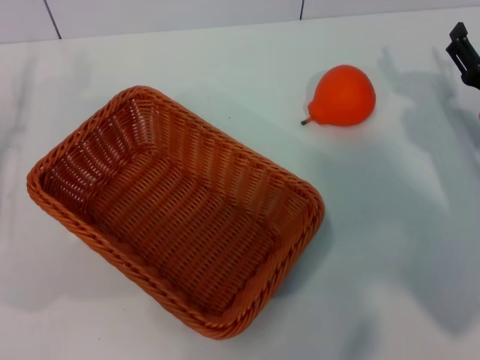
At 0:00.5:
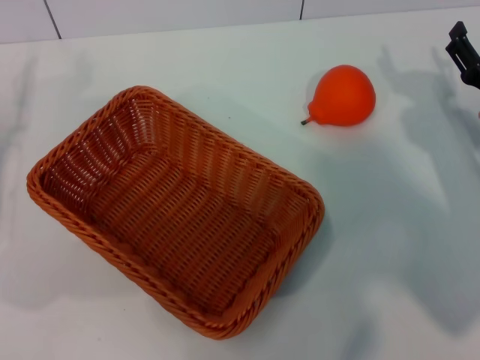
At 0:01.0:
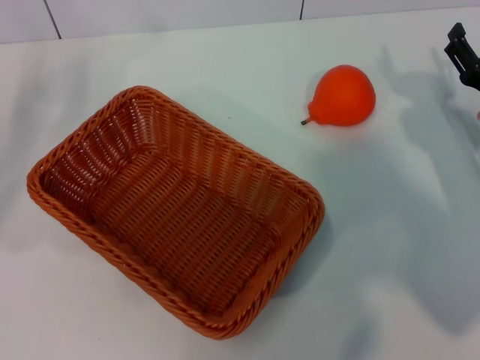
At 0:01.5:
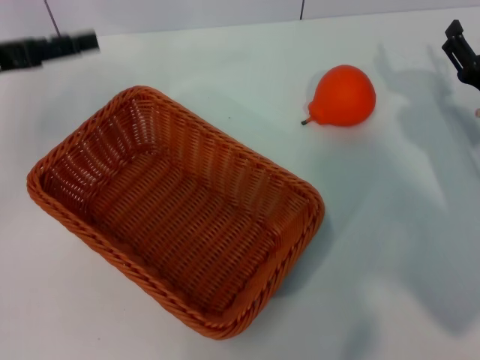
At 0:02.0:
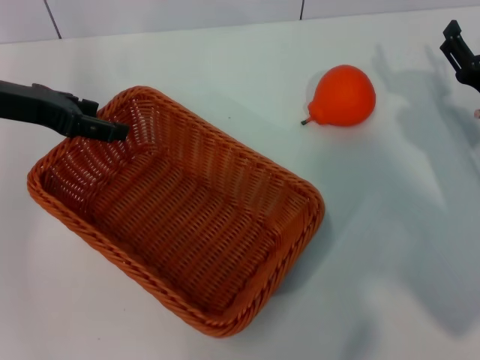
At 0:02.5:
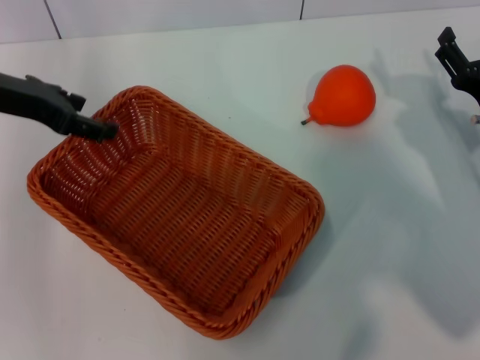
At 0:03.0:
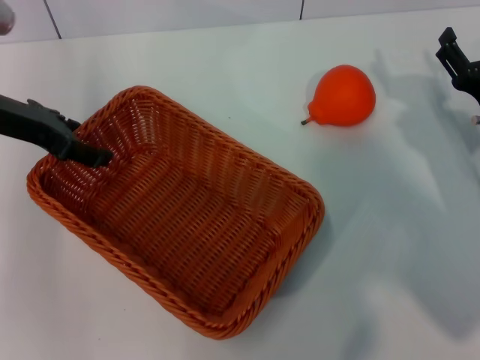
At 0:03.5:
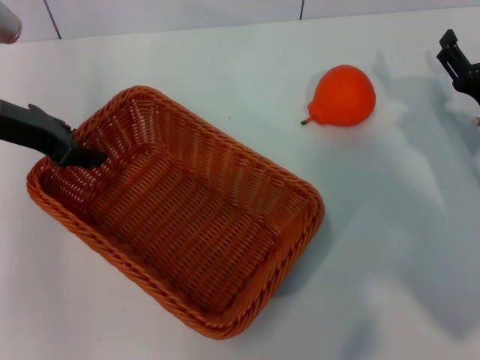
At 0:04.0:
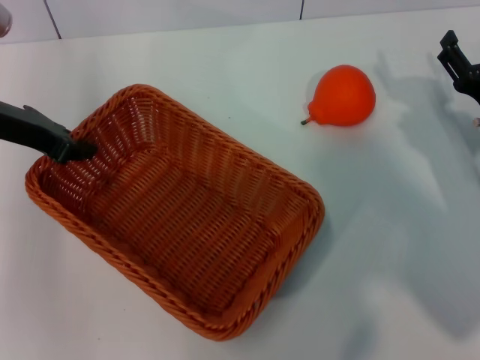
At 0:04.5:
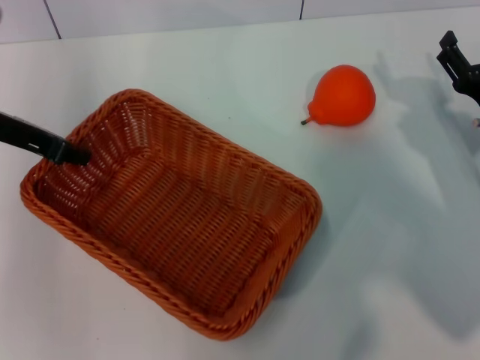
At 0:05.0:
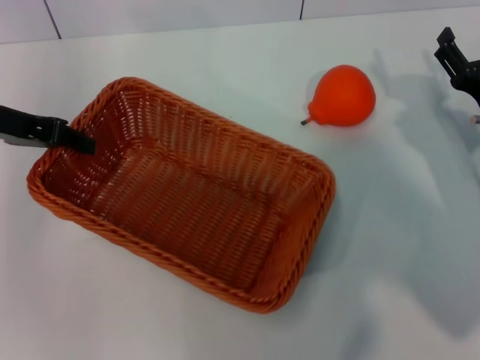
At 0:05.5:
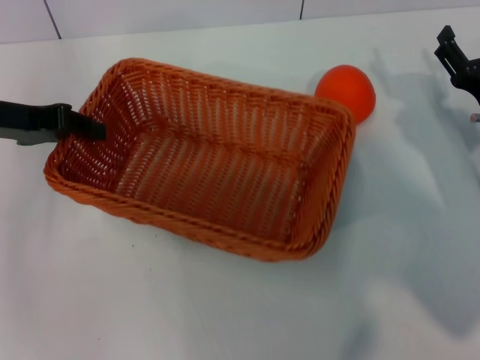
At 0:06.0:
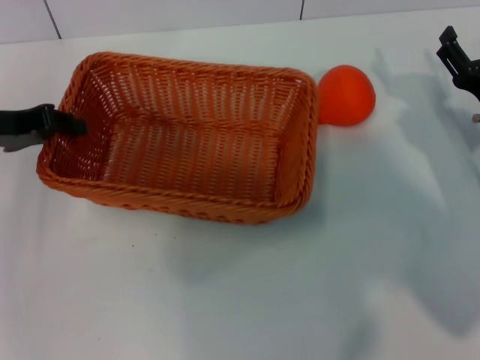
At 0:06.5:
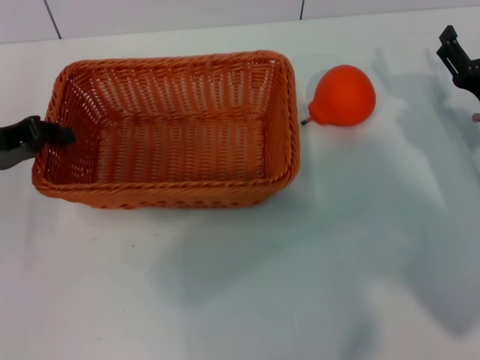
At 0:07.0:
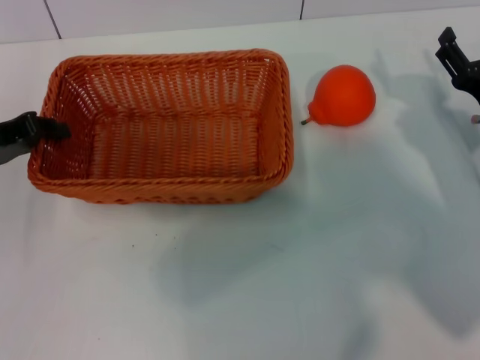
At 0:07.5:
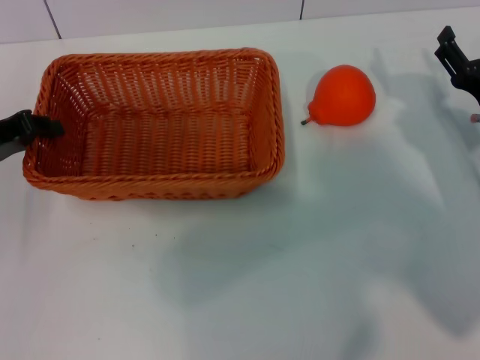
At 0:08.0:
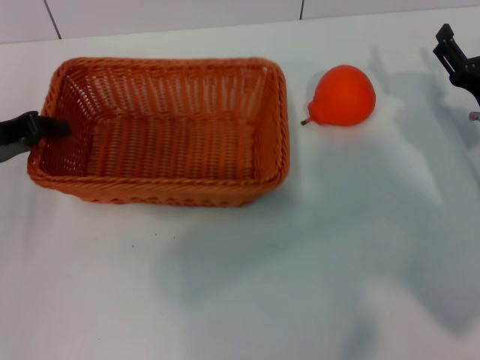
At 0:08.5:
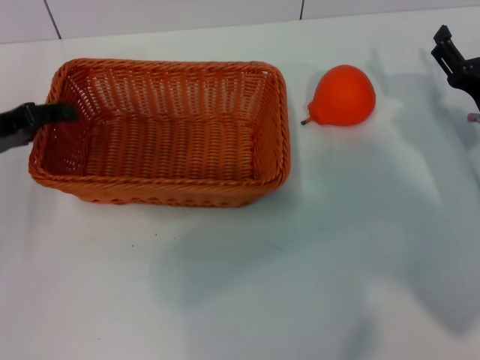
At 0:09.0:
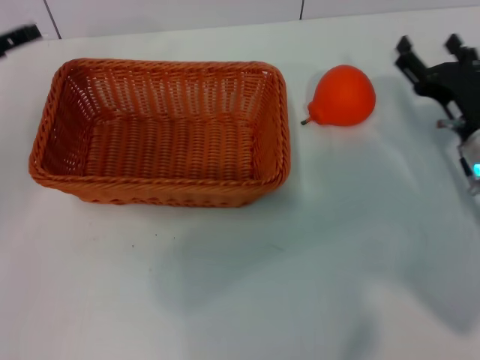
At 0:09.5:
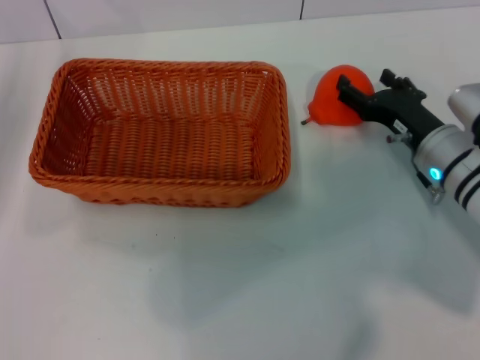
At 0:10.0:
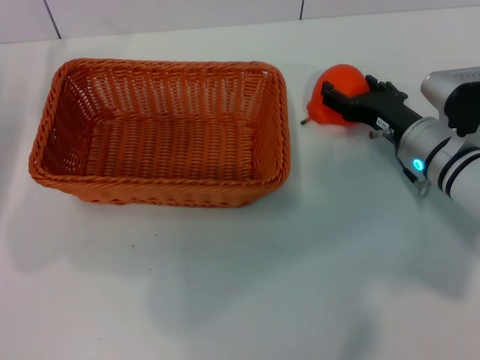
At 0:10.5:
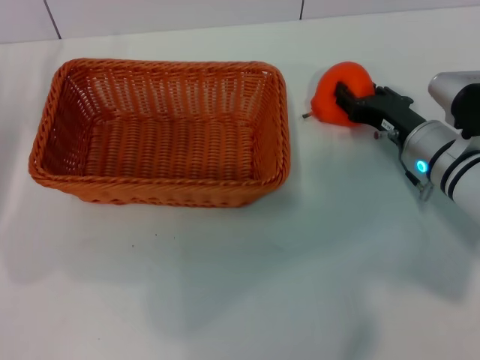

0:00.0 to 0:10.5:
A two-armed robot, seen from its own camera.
Task of the whole recording: the left gripper pick up the yellow basket and place it horizontally in the middle of the table, the right gripper pick up the orange and place it into the yellow basket.
Step, 0:00.0 to 0:04.5: Pick up the light basket with the left gripper.
Step, 0:05.0 to 0:08.5: Place the light basket in the center of view with the left gripper.
0:00.0 to 0:02.0: The left gripper travels upward, forward and to the right by roughly 15 cm.
0:02.0 to 0:04.0: The left gripper closes its fingers.
0:04.0 to 0:06.5: The left gripper moves roughly 10 cm.
0:06.5 to 0:08.5: The left gripper opens.
0:08.5 to 0:10.5: The left gripper moves roughly 5 cm, and opens its fingers; the right gripper is displaced to the left by some 5 cm.

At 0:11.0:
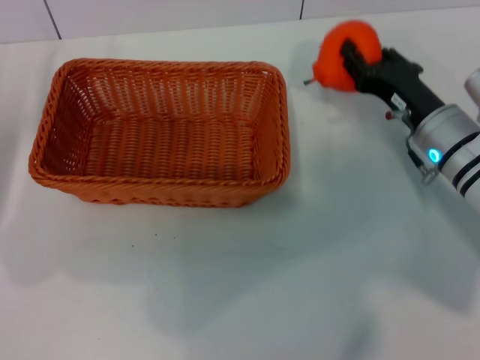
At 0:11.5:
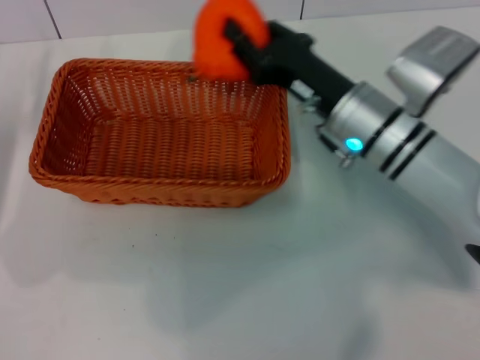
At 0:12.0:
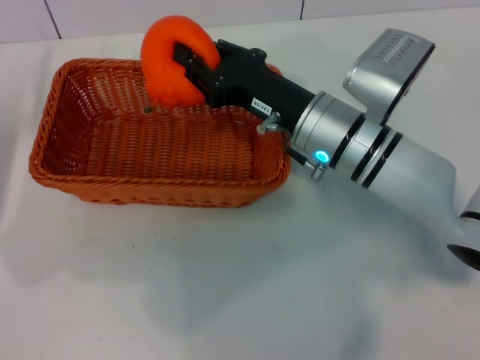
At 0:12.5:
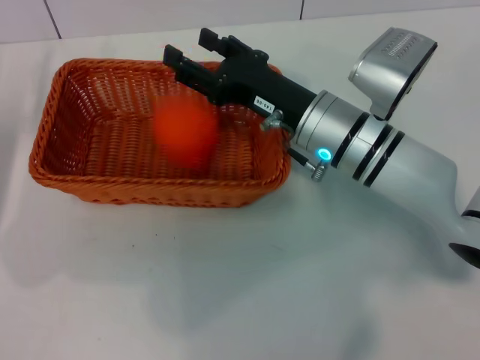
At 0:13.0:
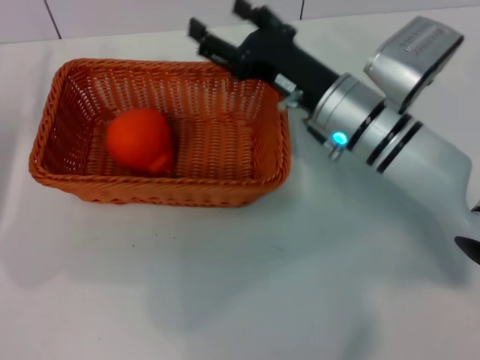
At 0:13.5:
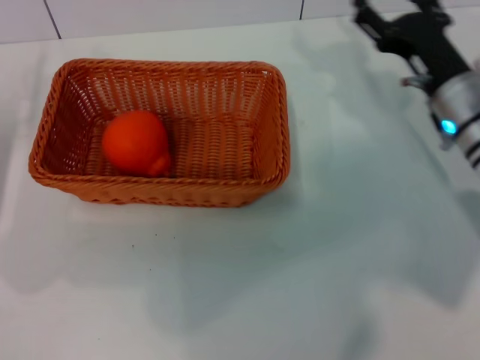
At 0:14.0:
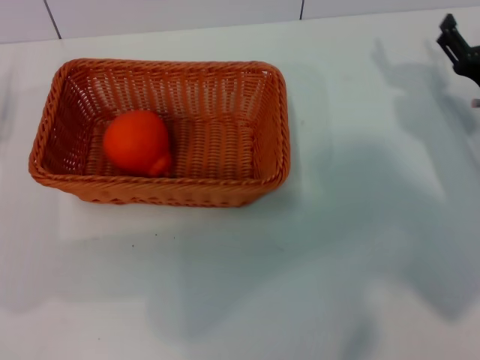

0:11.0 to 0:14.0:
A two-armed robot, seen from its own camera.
Task of the whole recording: the left gripper pick up the yellow basket and place it horizontally in the middle of the table, the right gripper pick up the orange and place it into the yellow basket.
Step, 0:11.5 to 0:12.5: Place the orange into the light basket with the right gripper.
0:11.0 to 0:12.5: The right gripper shifts roughly 10 cm to the left.
0:12.5 to 0:14.0: The right gripper shifts roughly 20 cm to the right, and opens.

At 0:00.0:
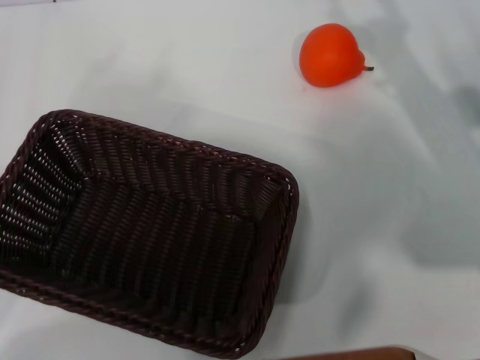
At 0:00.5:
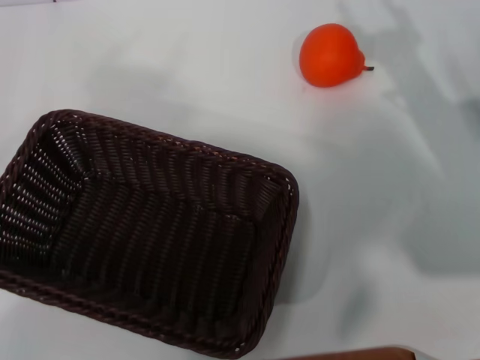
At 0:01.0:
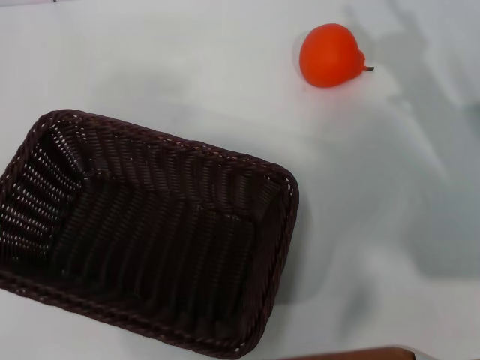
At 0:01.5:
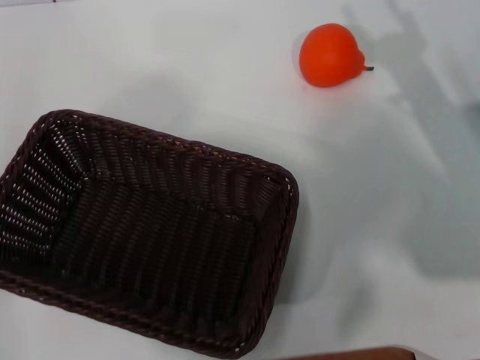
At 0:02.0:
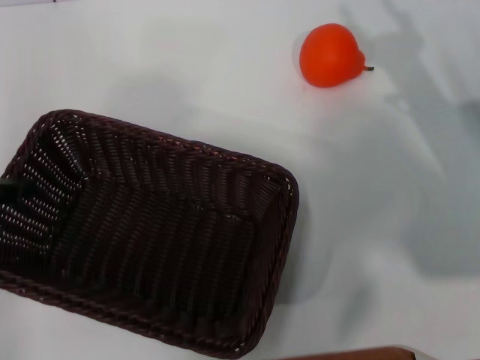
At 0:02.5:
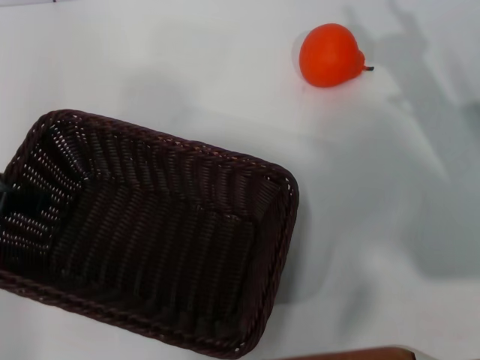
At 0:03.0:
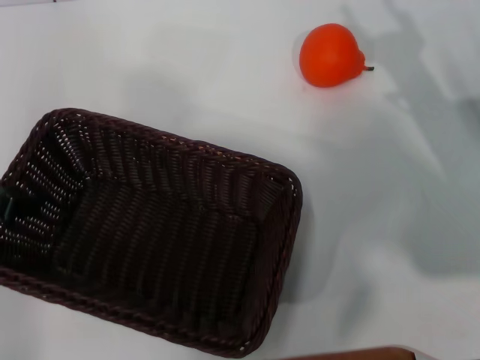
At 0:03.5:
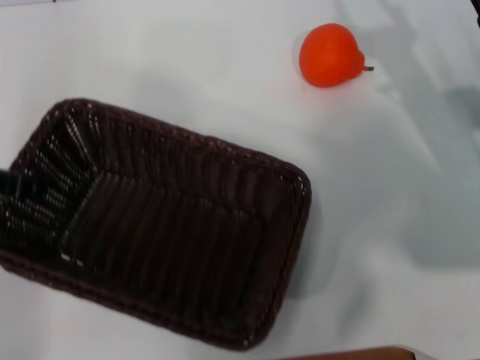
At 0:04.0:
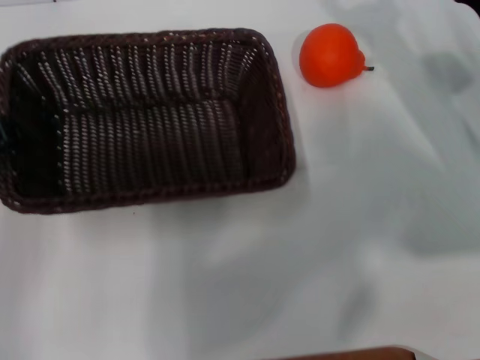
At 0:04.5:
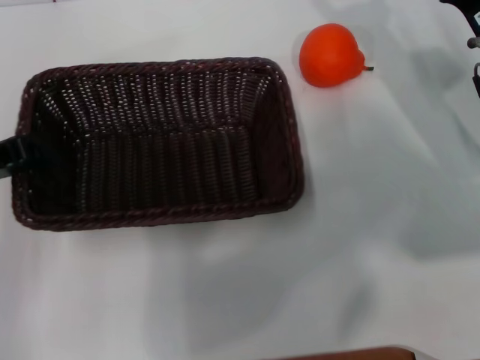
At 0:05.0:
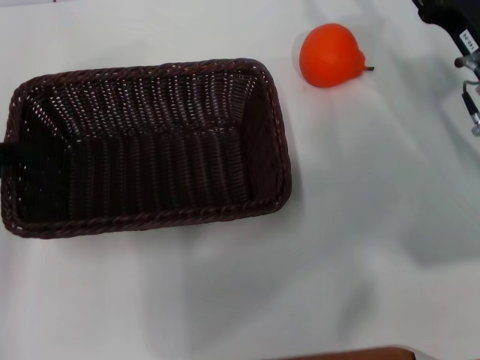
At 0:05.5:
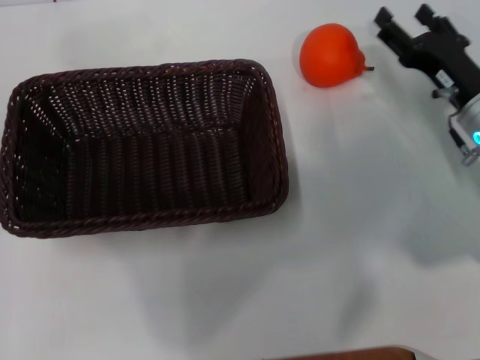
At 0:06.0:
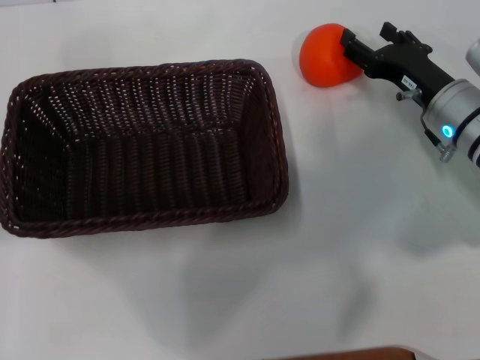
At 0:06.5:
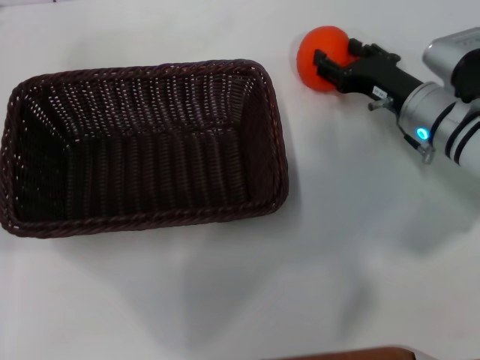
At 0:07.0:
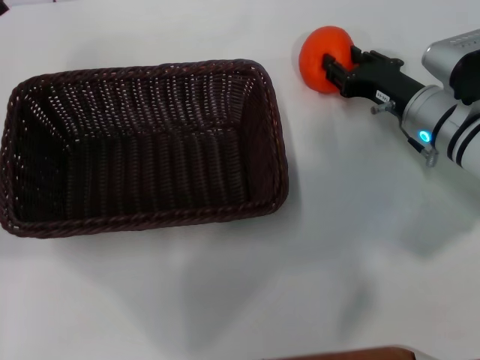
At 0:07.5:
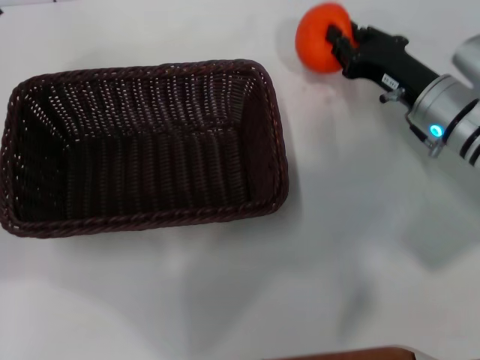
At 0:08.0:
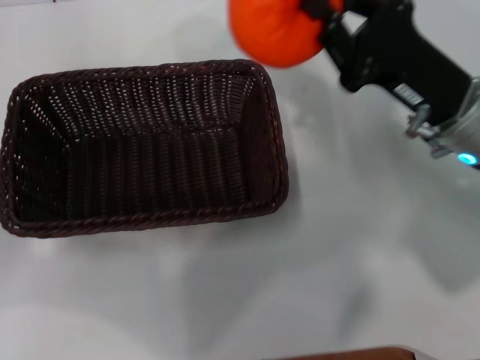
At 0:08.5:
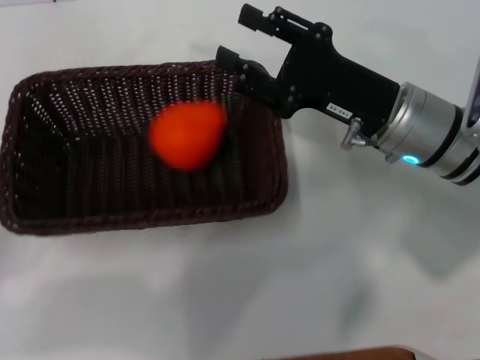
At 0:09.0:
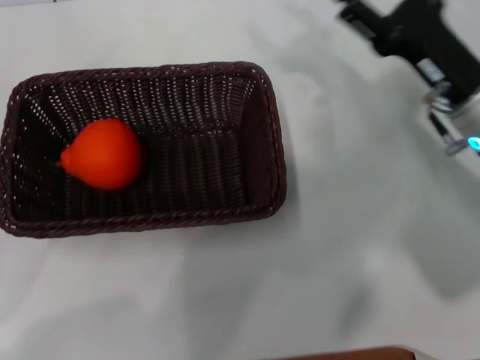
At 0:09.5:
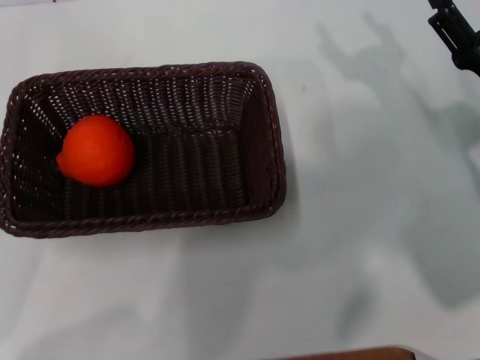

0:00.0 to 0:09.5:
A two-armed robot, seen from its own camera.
Task of the whole recording: the left gripper pick up the black basket and place it horizontally in the middle of the table, the right gripper pick up the orange and place it into the black basket.
Step, 0:00.0 to 0:03.0: Pick up the dark basket with the left gripper.
Step, 0:04.0 to 0:05.0: Place the dark basket in the center of view with the left gripper.
Step, 0:05.5 to 0:07.0: Pick up the orange with the right gripper.
0:02.0 to 0:04.0: The right gripper moves forward, approximately 5 cm. The left gripper closes its fingers.
0:04.0 to 0:05.5: The left gripper moves to the left, about 5 cm, and opens up.
0:05.5 to 0:07.5: The right gripper closes its fingers.
0:07.5 to 0:09.5: The right gripper is displaced backward by roughly 10 cm, and opens up. The left gripper goes about 10 cm downward and backward.
